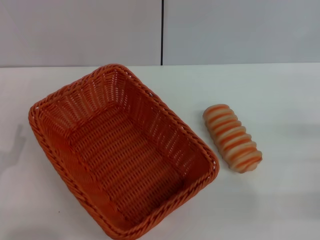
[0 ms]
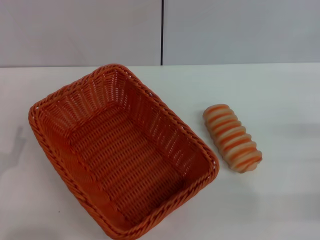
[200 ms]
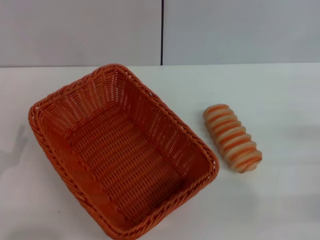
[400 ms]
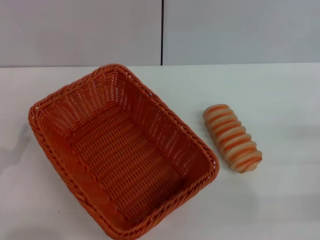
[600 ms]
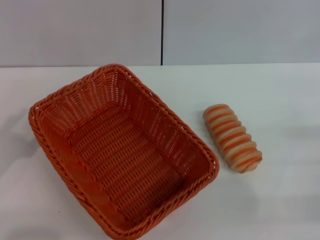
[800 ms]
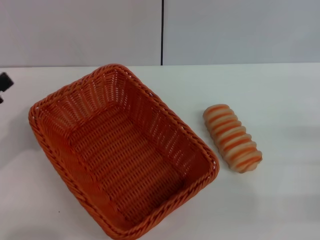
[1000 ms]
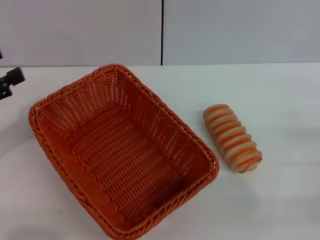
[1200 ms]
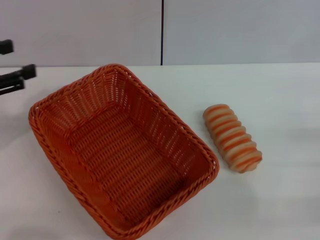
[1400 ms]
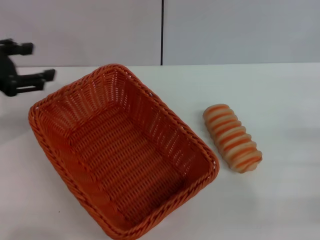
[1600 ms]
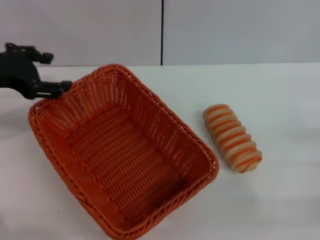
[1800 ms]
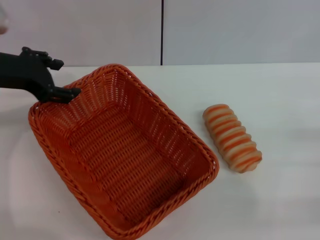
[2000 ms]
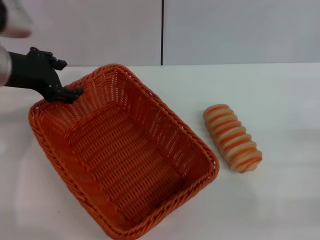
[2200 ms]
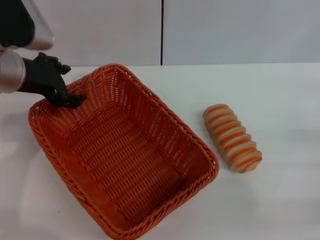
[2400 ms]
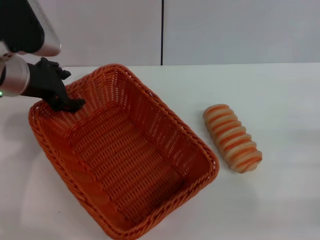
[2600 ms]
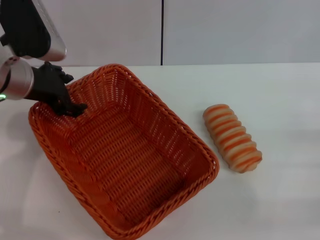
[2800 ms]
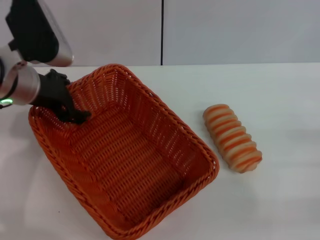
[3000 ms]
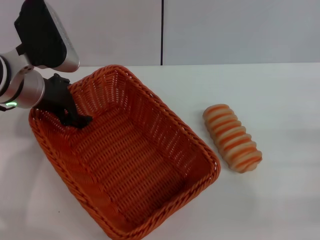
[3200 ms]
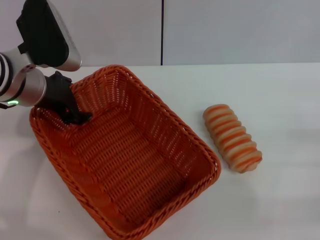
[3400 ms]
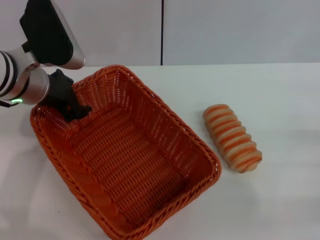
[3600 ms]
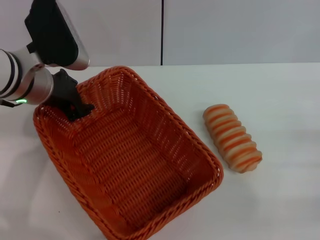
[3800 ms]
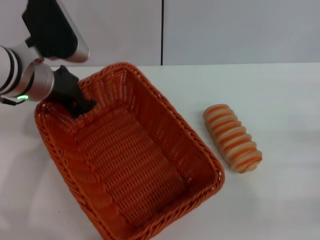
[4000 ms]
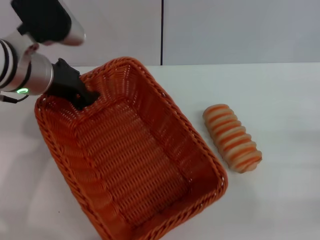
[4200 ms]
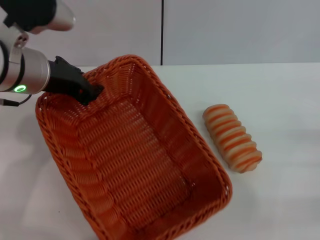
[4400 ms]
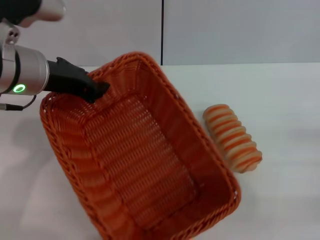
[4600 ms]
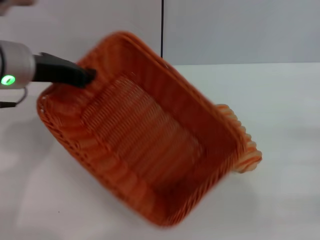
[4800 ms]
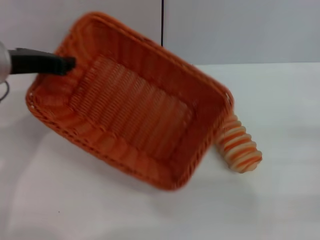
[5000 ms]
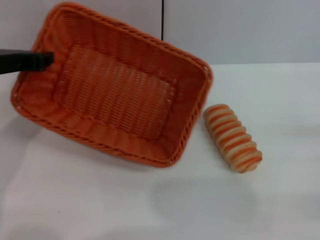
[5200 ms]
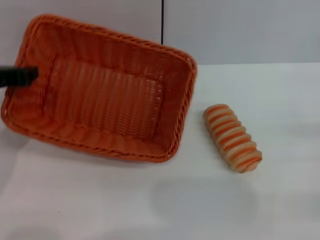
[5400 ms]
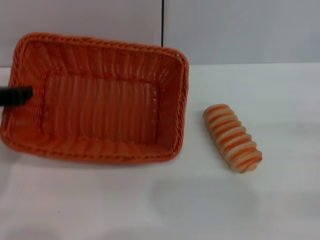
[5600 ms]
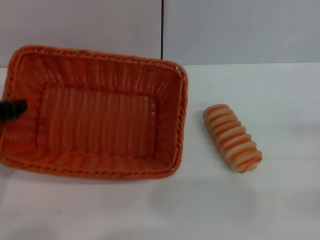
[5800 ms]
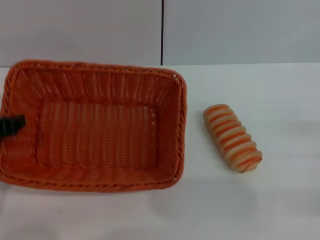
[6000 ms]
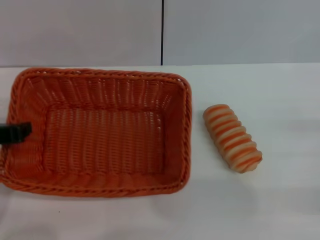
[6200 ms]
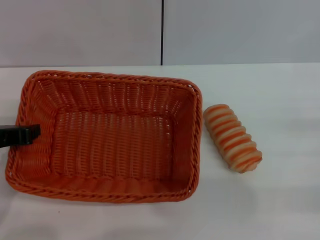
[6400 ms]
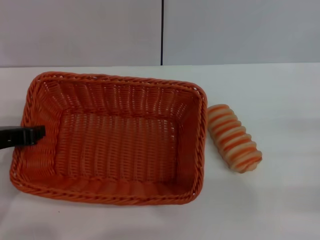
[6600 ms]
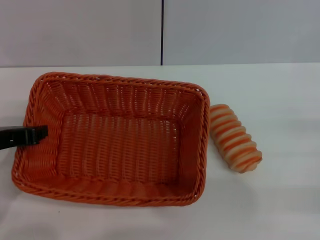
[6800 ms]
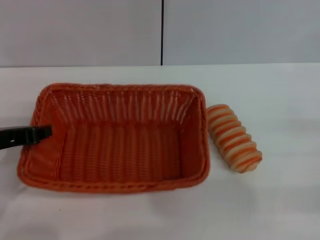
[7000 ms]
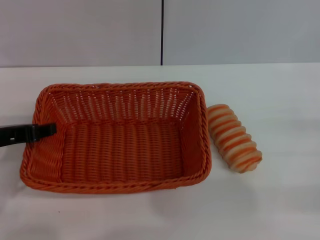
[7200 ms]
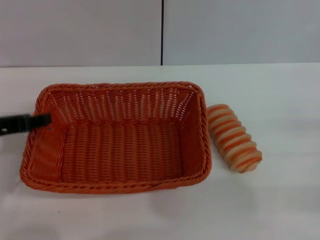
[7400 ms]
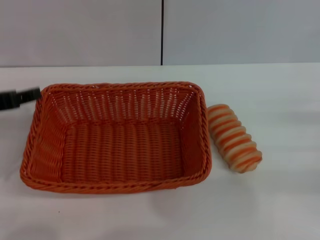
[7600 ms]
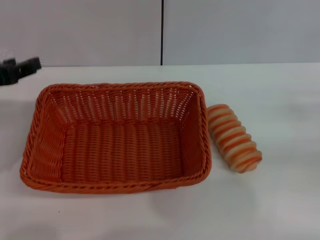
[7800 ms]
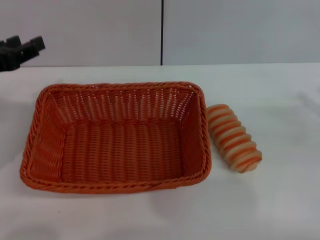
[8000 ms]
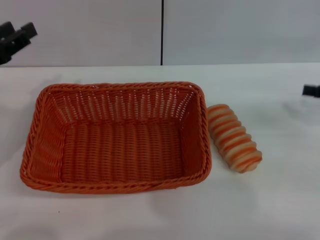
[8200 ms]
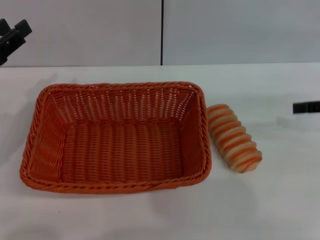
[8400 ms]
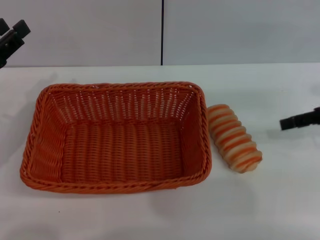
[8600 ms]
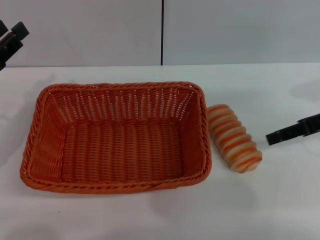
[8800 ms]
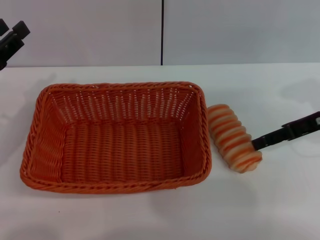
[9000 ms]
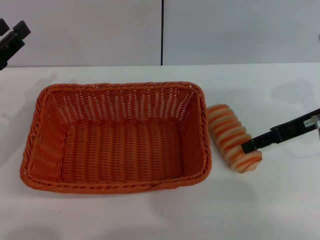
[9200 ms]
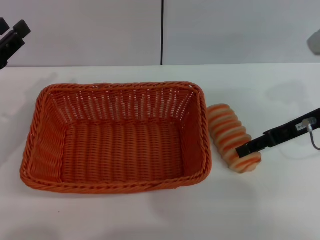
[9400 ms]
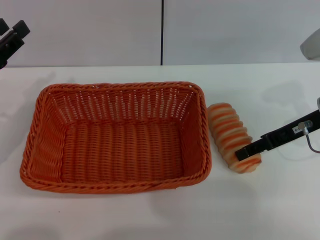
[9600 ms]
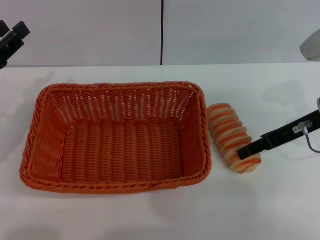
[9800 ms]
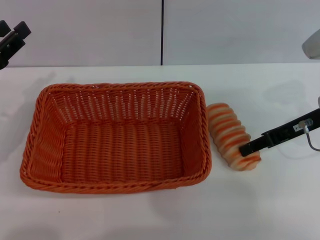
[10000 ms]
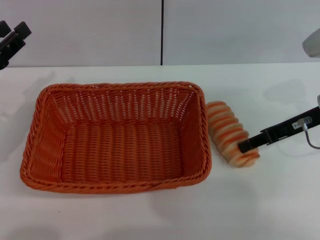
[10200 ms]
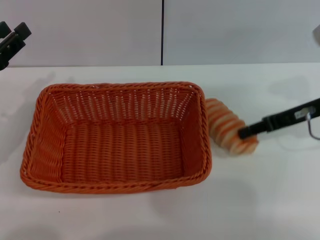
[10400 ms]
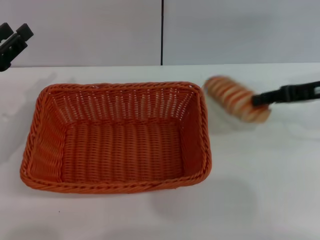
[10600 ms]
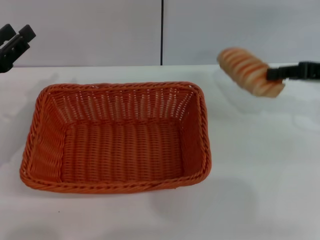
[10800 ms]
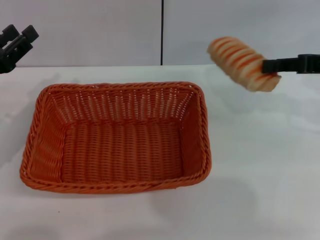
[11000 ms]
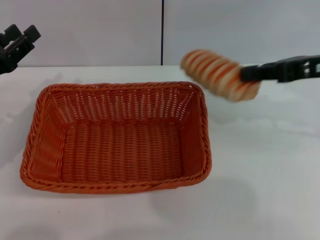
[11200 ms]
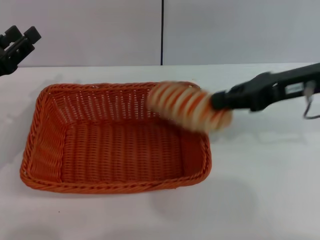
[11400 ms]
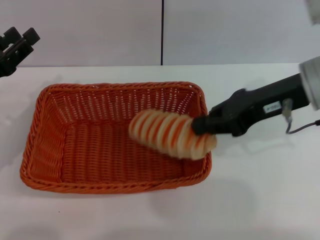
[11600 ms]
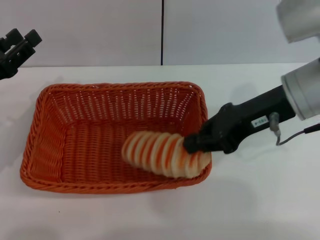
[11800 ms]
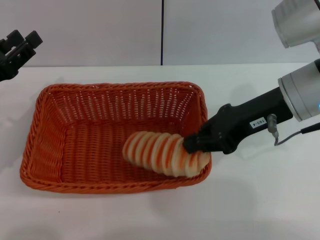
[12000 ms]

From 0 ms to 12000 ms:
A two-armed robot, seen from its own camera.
Step, from 0 ms to 4200 ms: Pick up the light basket with the left gripper.
Step, from 4400 ms to 7200 ms: Place the light basket in the center of view with the left gripper.
Step, from 7600 ms to 10600 ms: Pick up the long bread with the right gripper.
From 0 ms to 1600 ms: The left gripper is displaced upward and forward by about 20 cm.
From 1600 ms to 3000 ms: The left gripper moves to the right and forward, roughly 15 cm.
From 3000 ms to 4400 ms: The left gripper closes its fingers.
From 4400 ms to 6000 ms: The left gripper shifts some 15 cm to the left and backward.
From 6000 ms to 7600 ms: The left gripper opens up.
From 7600 ms to 9000 ms: The right gripper is displaced to the left, forward and upward by some 15 cm; the left gripper shifts by roughly 5 cm.
From 9000 ms to 10400 ms: The right gripper closes.
From 10400 ms to 12000 ms: The right gripper heads to the left, covering roughly 10 cm, and closes its fingers.

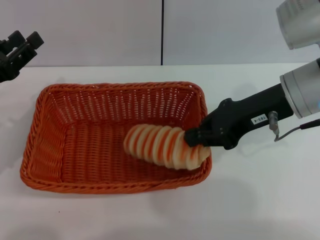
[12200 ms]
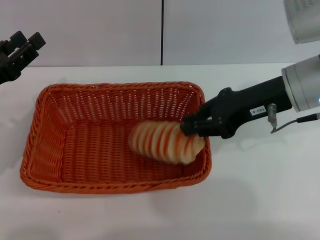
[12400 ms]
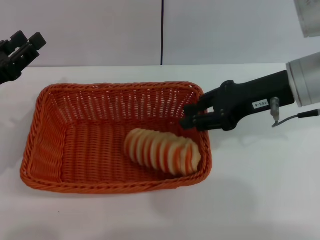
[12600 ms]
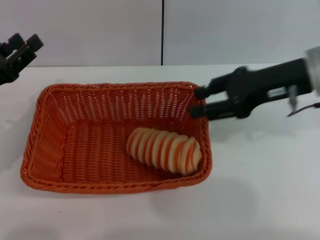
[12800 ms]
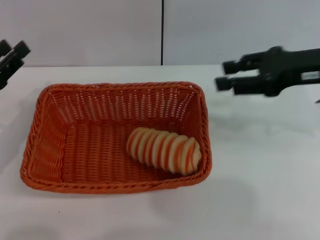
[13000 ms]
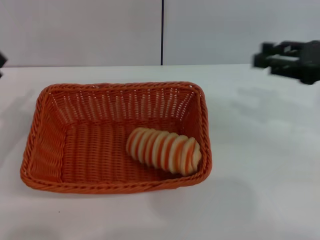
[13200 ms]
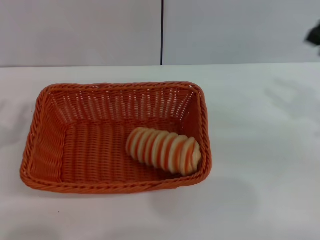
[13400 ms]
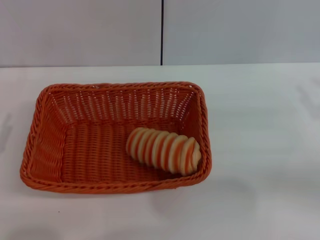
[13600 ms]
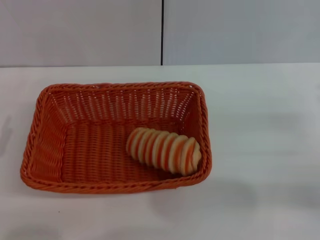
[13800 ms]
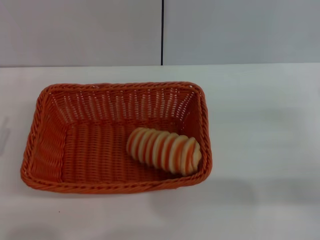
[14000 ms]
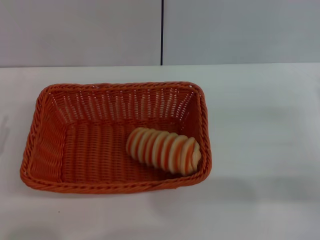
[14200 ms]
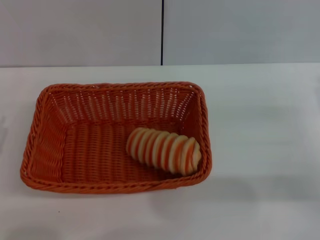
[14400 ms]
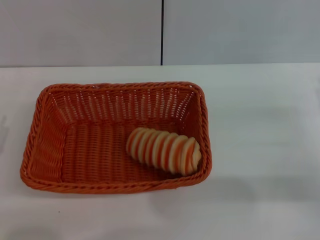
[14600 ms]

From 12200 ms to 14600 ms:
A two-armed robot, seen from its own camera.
From 12200 ms to 13400 ms: The left gripper shifts about 10 cm backward and downward, while the right gripper goes about 15 cm to the right, and opens.
From 13400 ms to 14600 ms: The right gripper moves downward, about 5 cm.

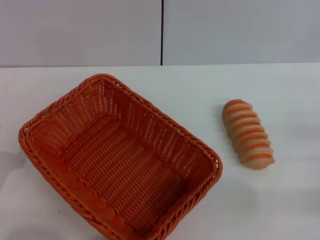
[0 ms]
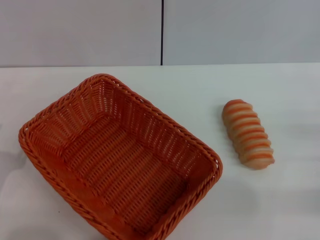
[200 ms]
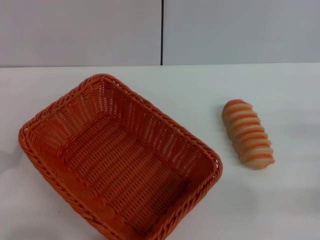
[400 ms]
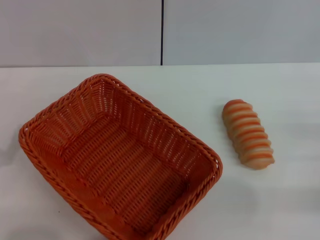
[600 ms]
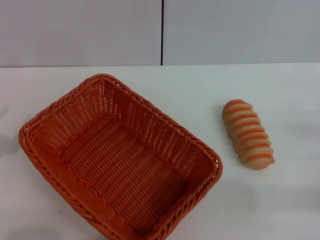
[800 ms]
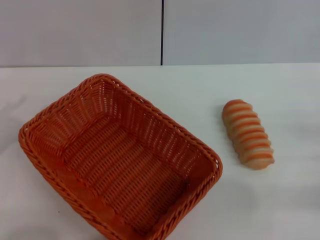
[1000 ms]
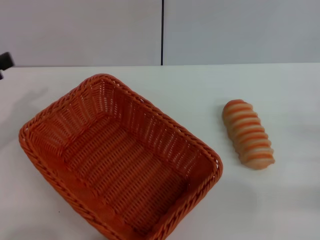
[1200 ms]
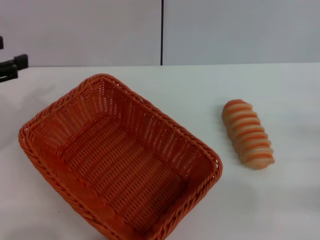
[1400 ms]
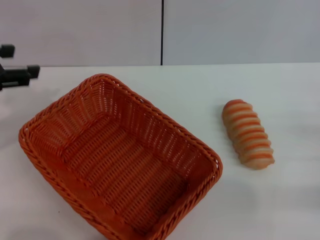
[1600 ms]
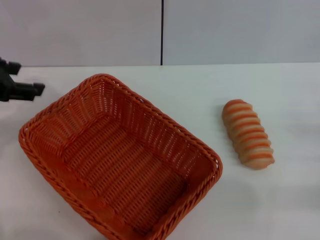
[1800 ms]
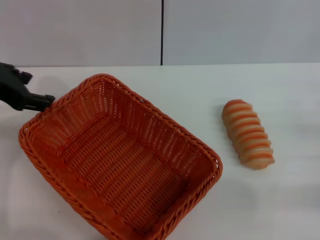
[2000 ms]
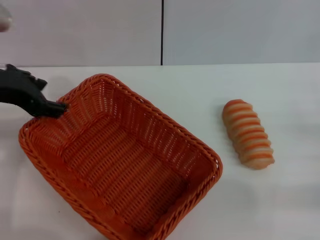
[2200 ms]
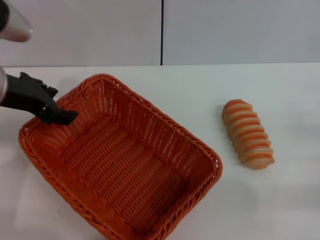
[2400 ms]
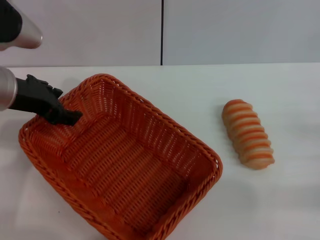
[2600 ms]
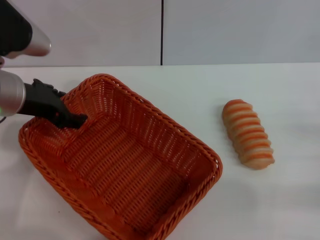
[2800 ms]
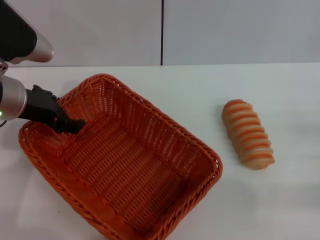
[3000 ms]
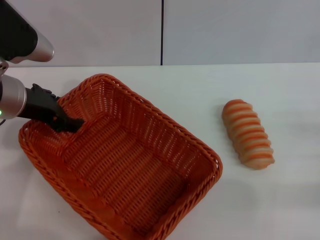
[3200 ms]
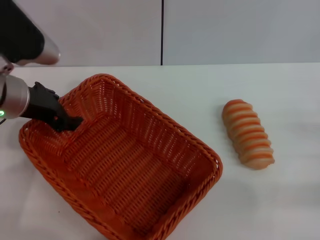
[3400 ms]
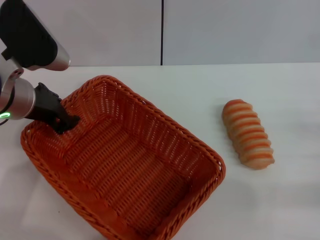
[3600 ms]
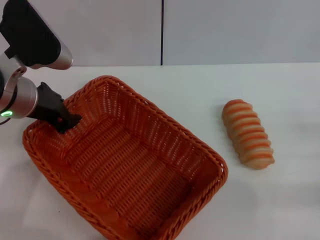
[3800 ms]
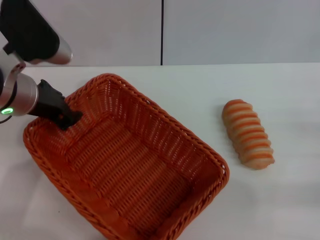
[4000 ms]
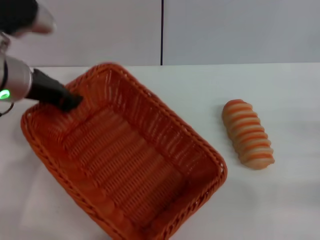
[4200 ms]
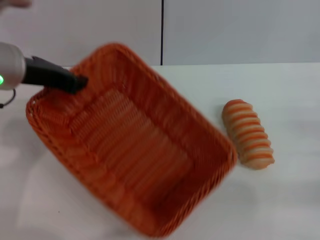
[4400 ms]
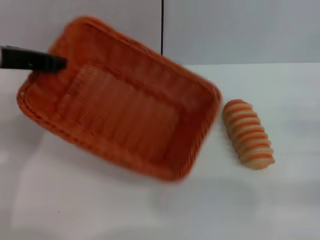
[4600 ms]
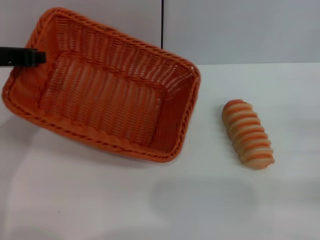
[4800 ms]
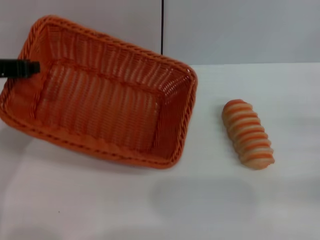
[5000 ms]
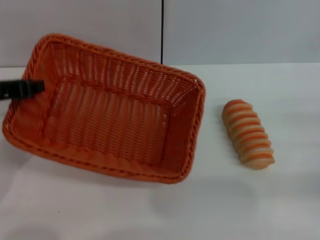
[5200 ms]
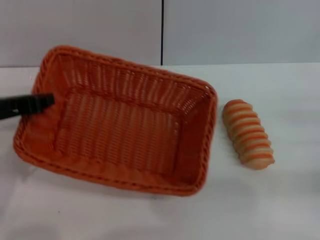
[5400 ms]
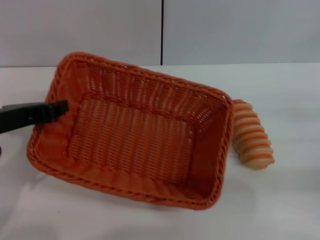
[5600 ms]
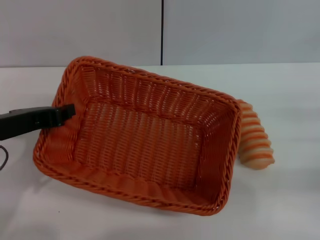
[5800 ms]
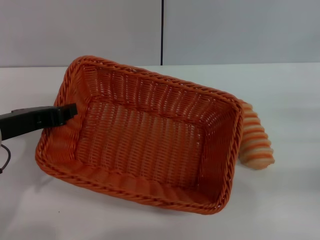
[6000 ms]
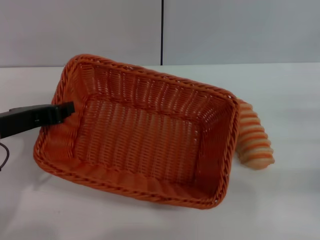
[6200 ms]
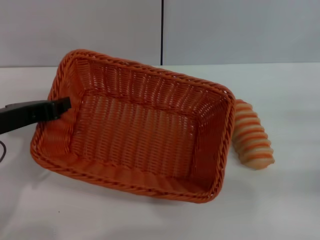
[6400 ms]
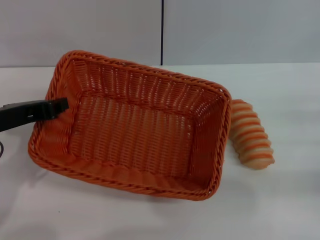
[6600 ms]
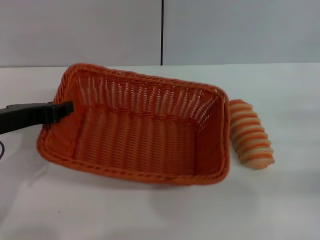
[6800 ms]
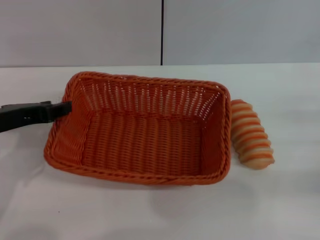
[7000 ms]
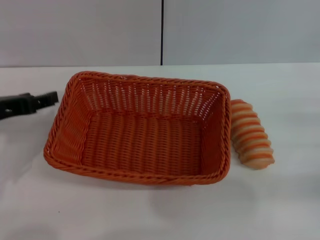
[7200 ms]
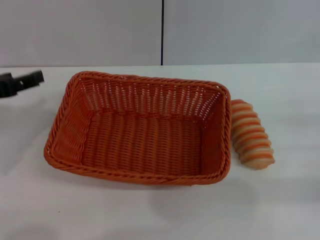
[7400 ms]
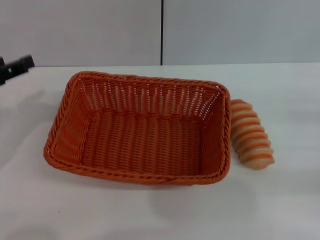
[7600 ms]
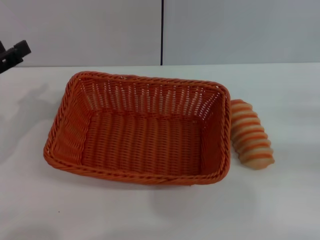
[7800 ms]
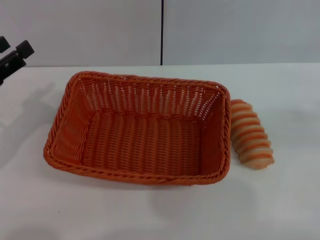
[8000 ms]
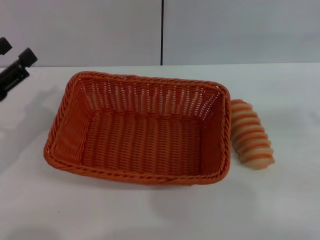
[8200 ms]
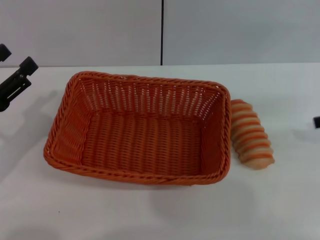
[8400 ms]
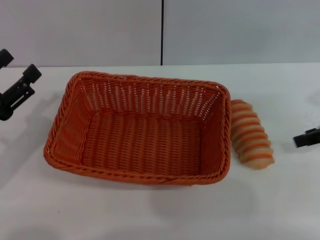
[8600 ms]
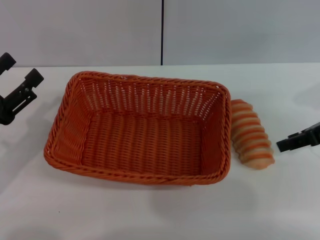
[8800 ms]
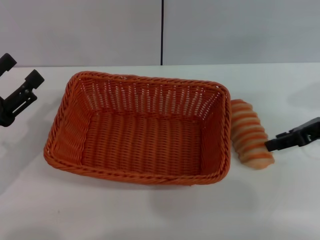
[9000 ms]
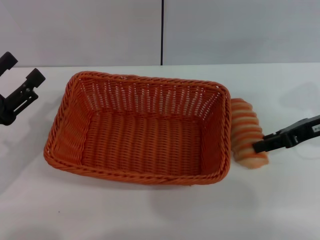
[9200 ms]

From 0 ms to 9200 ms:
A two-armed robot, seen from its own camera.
Step, from 0 ms to 4400 ms: Pick up the light basket with the left gripper.
Step, from 4800 ms to 7600 ms: Place the light basket in the center of view with the left gripper.
From 0 ms to 1600 ms: The left gripper travels upward and forward by some 25 cm.
From 1600 ms to 3000 ms: The left gripper shifts roughly 10 cm to the right and downward.
From 3000 ms to 4600 ms: The left gripper heads upward, covering some 5 cm, and closes up.
From 4600 ms to 6200 ms: The left gripper shifts about 10 cm backward and downward.
From 6200 ms to 7600 ms: The left gripper moves to the left, roughly 10 cm, and opens. Meanwhile the right gripper shifts by approximately 5 cm.
From 7600 ms to 9200 ms: The right gripper travels to the left and forward by some 15 cm, while the left gripper heads downward, covering about 10 cm.
